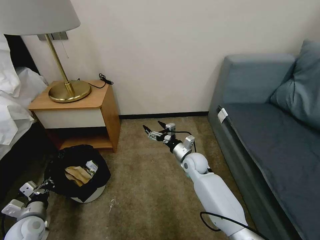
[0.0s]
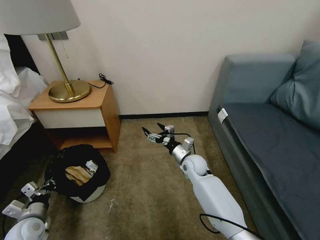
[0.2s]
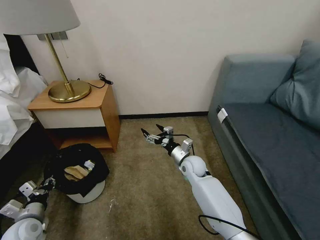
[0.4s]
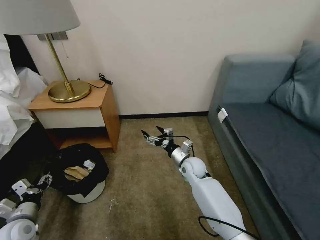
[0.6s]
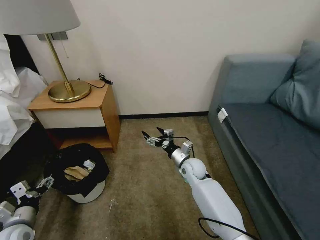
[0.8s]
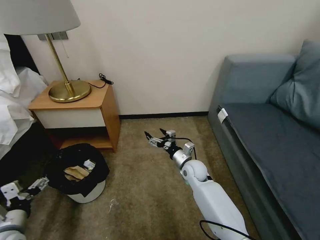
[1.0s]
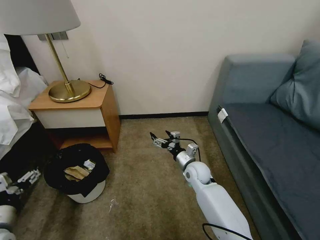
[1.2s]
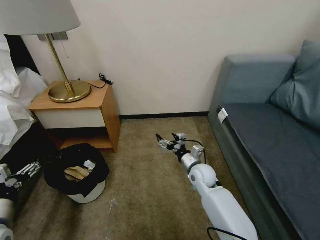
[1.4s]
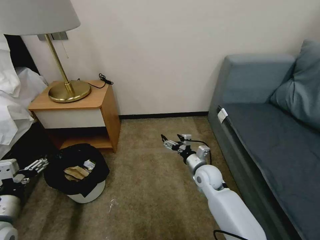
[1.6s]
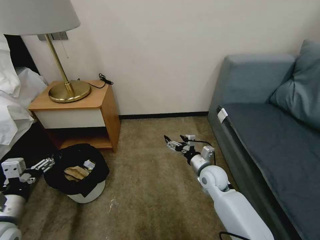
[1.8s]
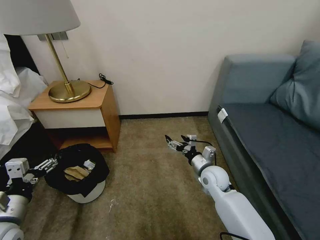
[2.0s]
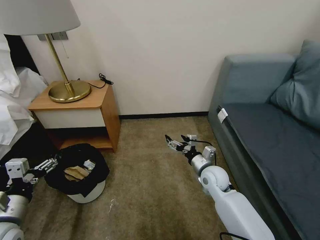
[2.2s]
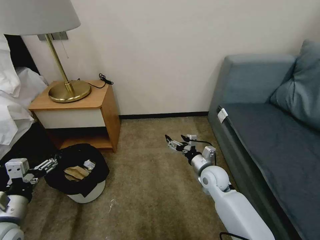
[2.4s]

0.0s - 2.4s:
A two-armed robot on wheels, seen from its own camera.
Task of the whole recording: Pick up the trash bin, then pick up the garbage on the floor and place it into the trash bin.
0.0s - 1.2s: The left gripper is displaced upward and backward by roughly 10 cm, and opens up.
1.2s - 2.4s: The left gripper is displaced upward by about 5 cm. Meanwhile the right gripper moves to the right, approximately 5 cm.
